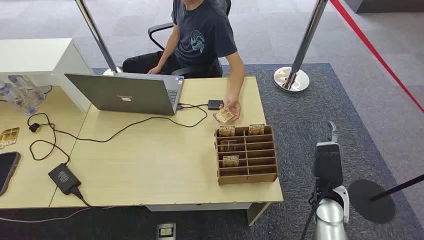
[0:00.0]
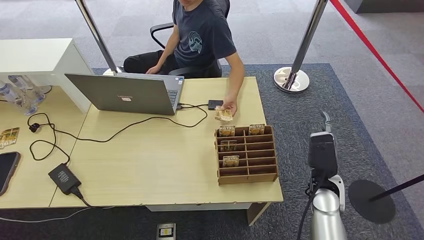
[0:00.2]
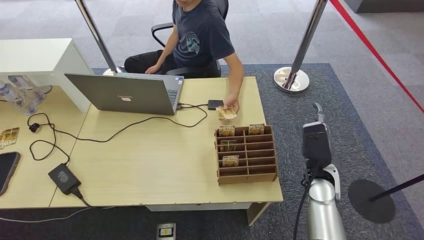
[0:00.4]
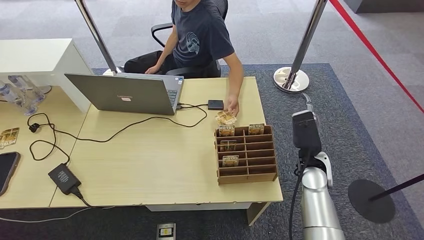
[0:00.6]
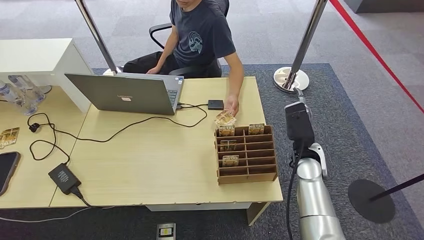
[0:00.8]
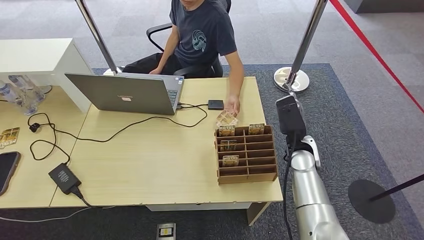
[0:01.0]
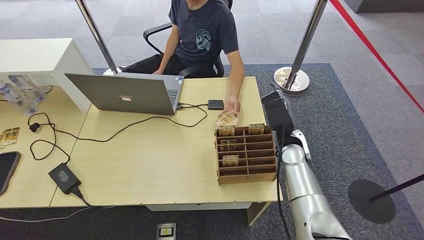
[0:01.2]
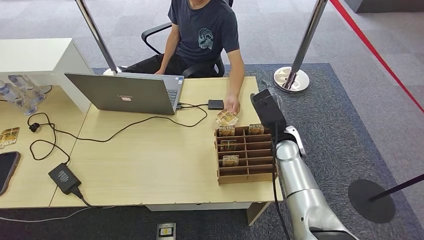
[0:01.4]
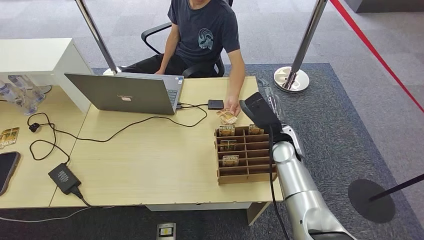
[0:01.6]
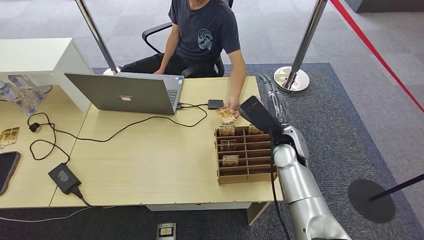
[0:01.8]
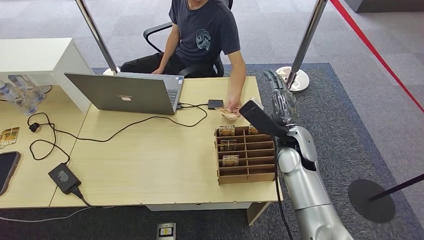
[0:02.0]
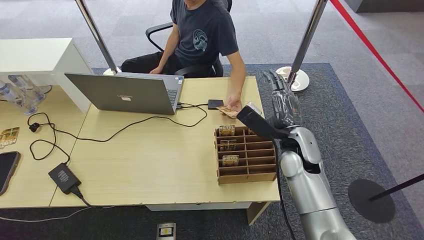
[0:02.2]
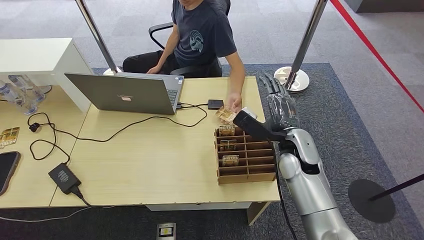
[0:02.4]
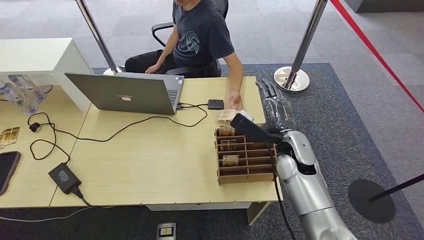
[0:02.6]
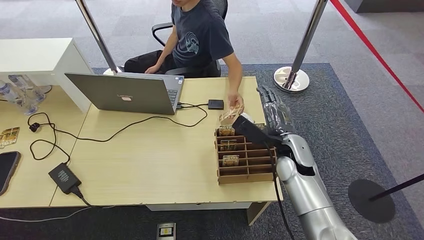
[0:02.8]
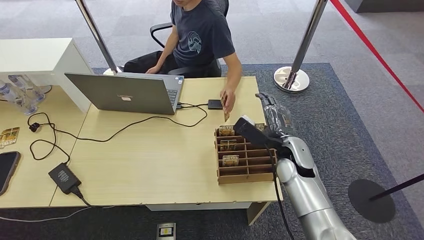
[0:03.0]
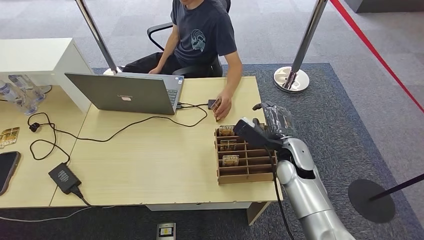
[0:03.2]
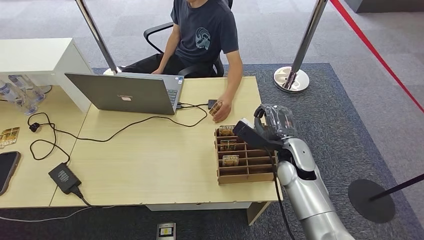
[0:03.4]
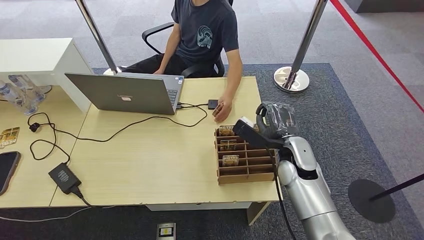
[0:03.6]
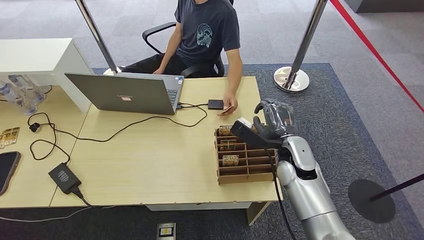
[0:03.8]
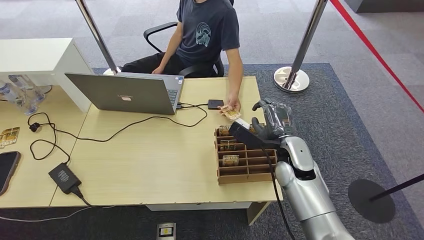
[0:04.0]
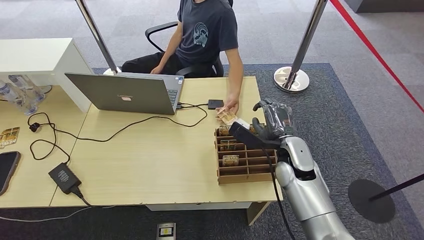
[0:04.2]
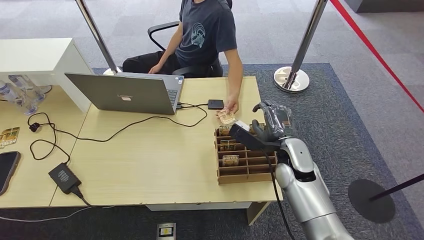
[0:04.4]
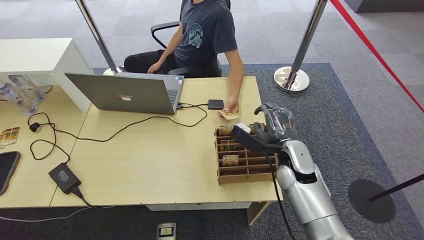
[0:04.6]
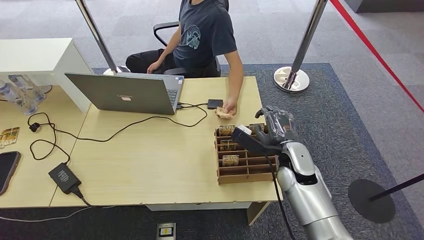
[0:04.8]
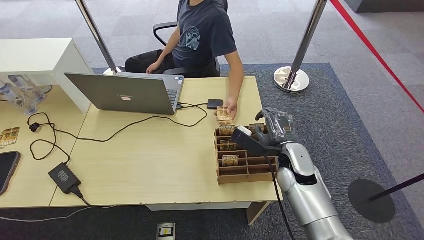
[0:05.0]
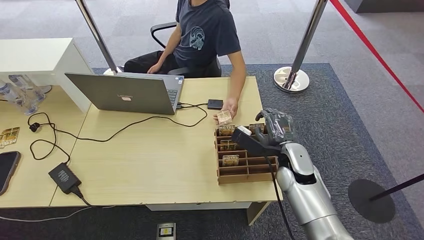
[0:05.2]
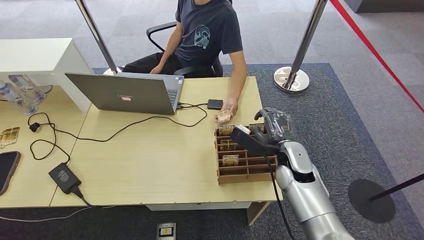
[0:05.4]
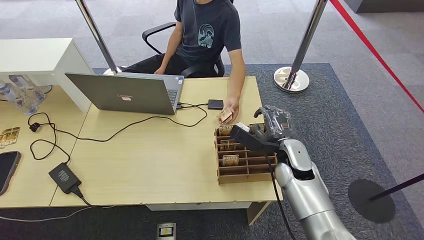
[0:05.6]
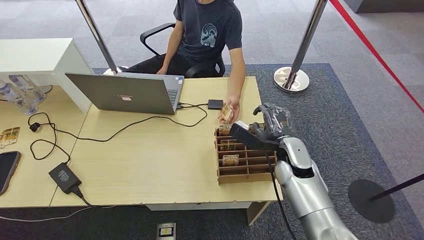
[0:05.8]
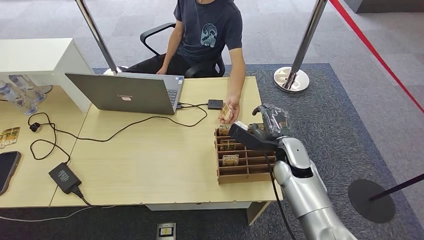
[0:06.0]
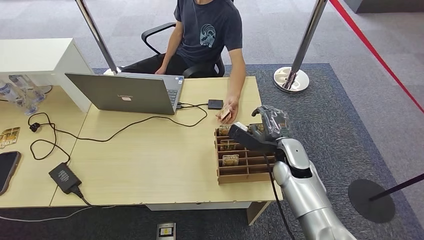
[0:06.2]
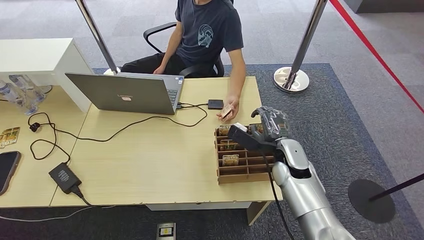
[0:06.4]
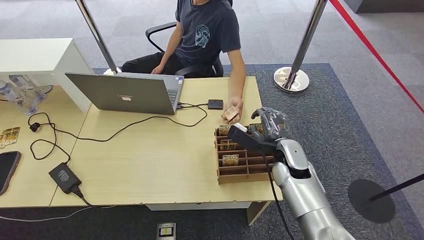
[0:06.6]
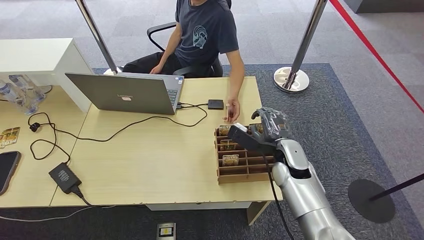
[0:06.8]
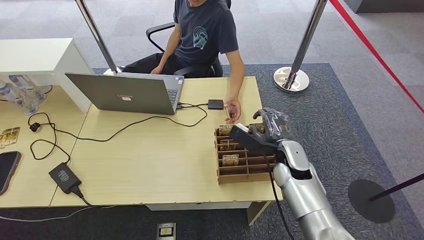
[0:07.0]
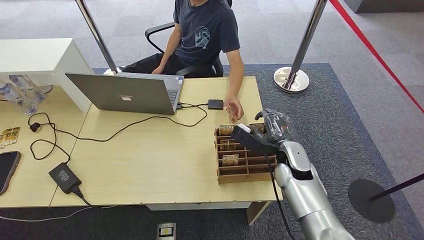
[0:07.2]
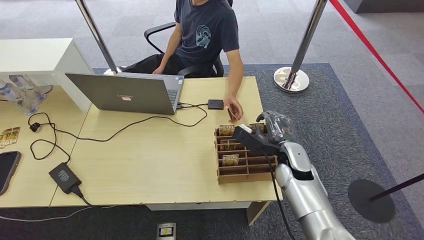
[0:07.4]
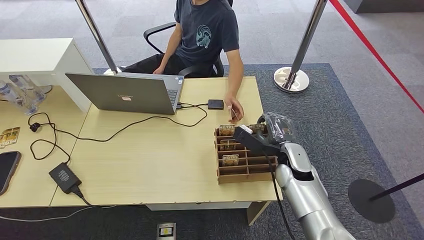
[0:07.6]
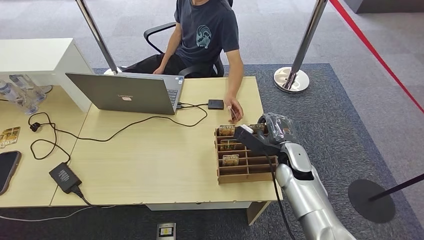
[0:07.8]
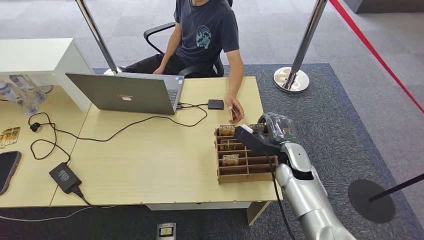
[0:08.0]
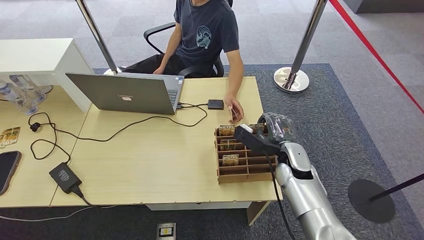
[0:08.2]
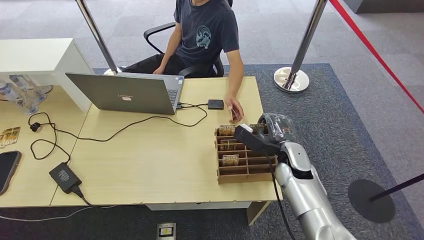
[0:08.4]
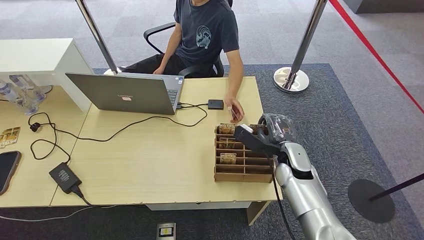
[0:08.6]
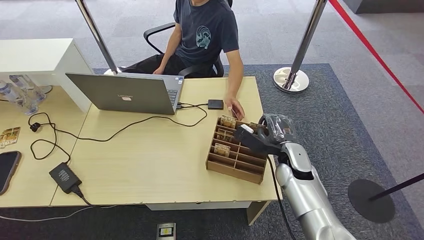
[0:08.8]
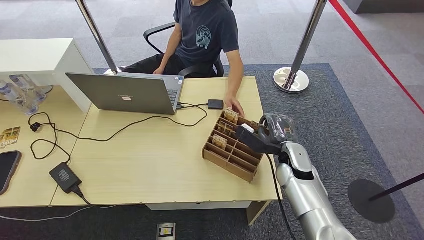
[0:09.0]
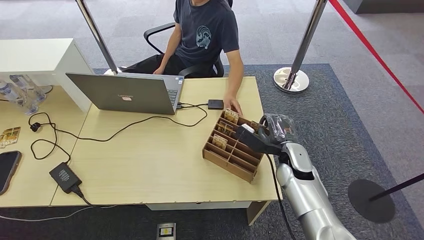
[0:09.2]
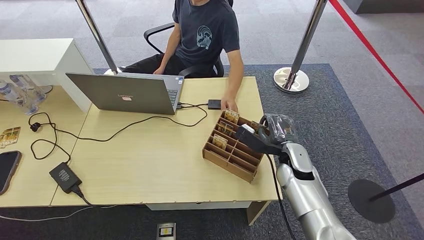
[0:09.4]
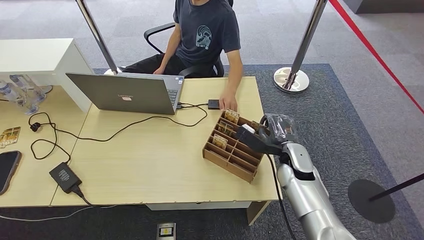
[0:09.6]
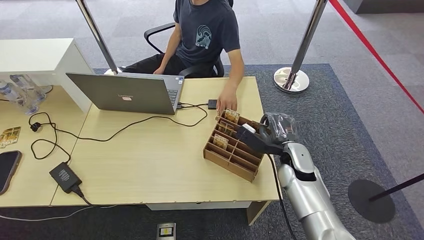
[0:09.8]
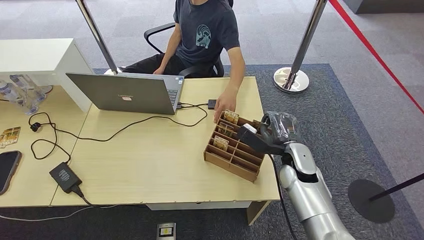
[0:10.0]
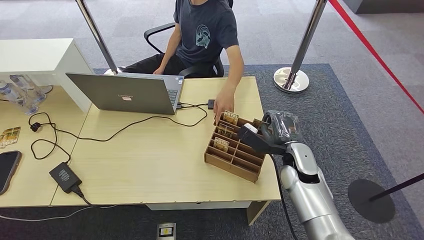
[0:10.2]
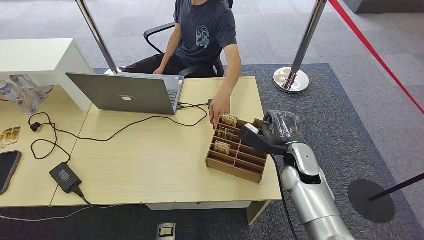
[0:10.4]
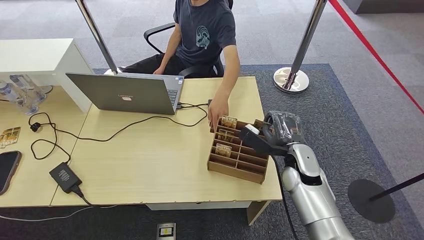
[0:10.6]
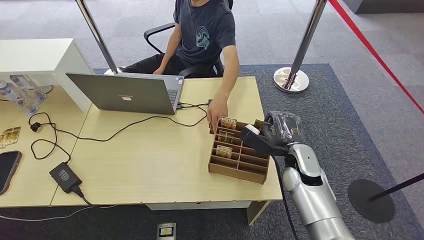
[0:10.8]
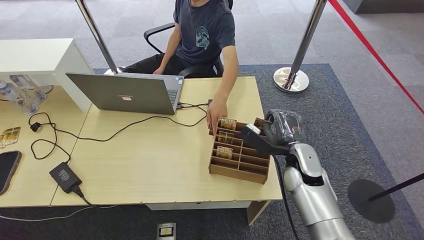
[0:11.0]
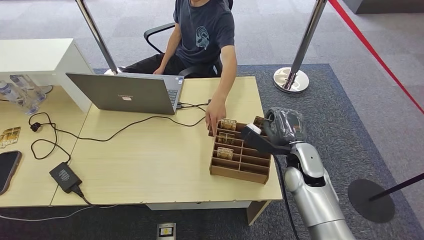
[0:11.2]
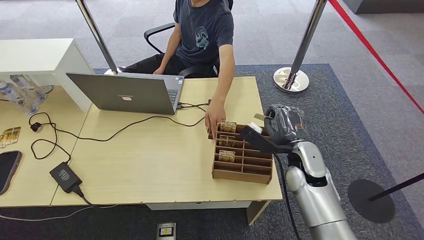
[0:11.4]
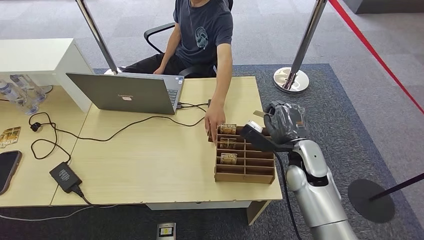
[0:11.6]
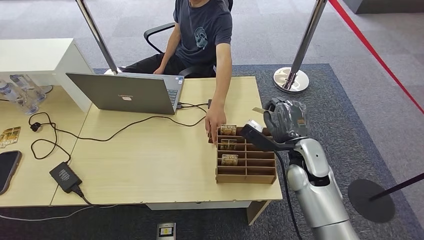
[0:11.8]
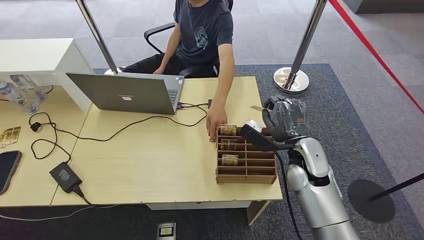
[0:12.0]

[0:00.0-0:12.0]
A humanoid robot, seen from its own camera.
Step, 0:00.0 to 0:09.4: Pick up the key card from the card box.
Step, 0:09.8 to 0:11.8: Hand the key card to the target.
0:03.0 to 0:07.6: The hands make only small movements.
0:07.6 to 0:09.0: Both hands stay about where they are.
0:09.0 to 0:10.4: The hands make only small movements.
0:10.4 to 0:12.0: The hands stay close to where they were, moving slightly.
